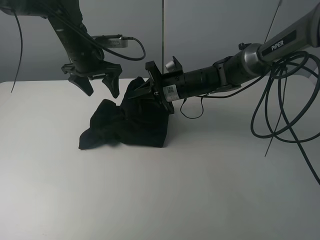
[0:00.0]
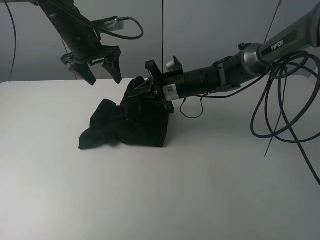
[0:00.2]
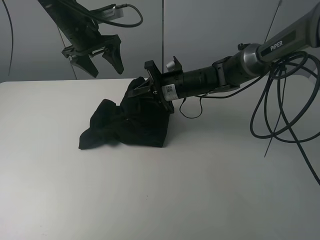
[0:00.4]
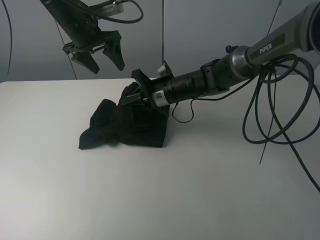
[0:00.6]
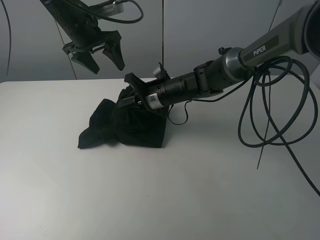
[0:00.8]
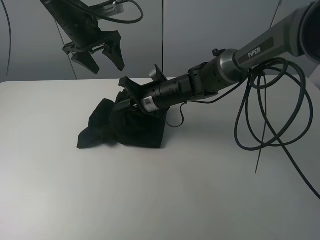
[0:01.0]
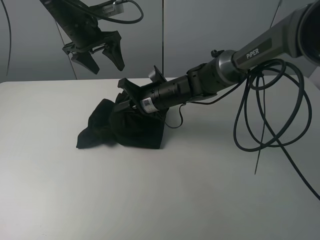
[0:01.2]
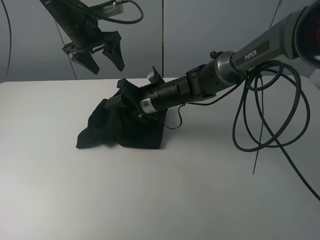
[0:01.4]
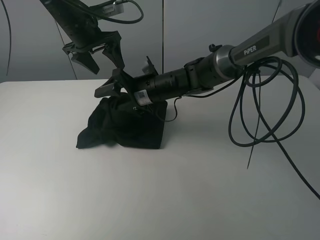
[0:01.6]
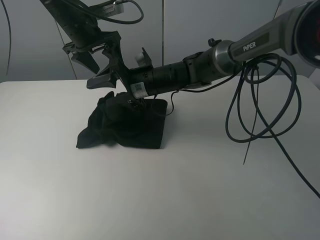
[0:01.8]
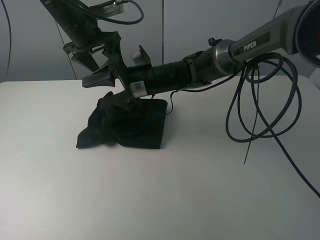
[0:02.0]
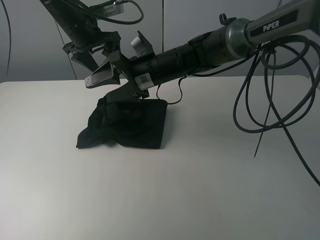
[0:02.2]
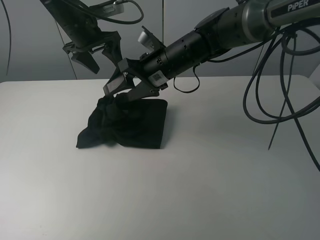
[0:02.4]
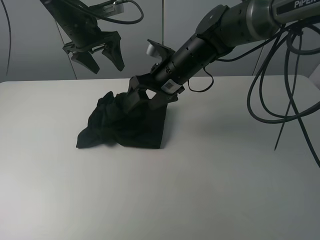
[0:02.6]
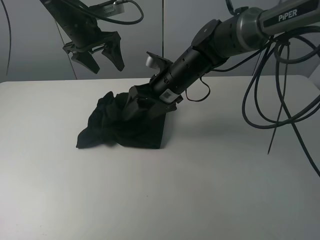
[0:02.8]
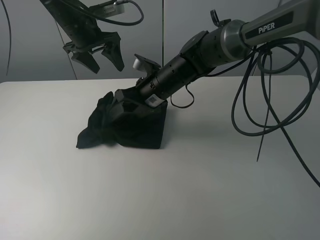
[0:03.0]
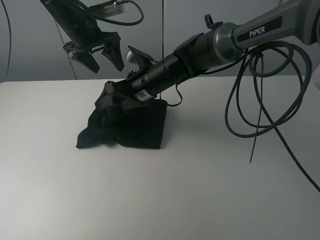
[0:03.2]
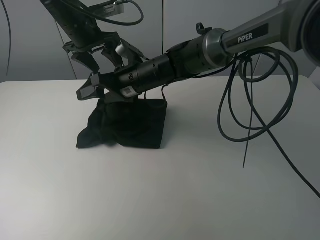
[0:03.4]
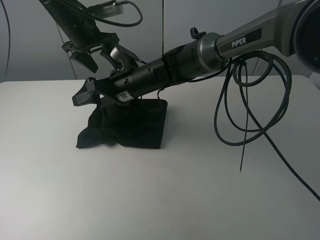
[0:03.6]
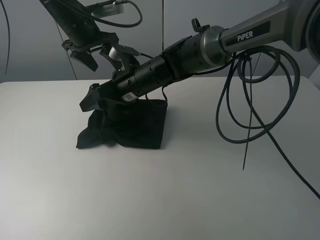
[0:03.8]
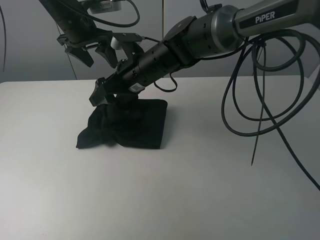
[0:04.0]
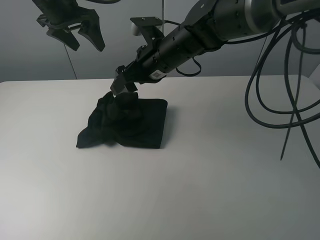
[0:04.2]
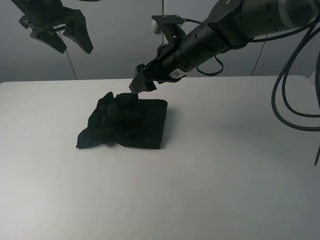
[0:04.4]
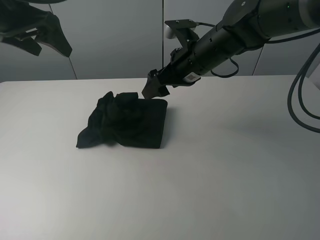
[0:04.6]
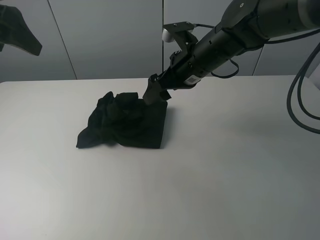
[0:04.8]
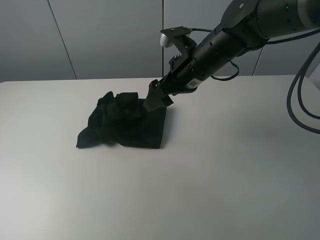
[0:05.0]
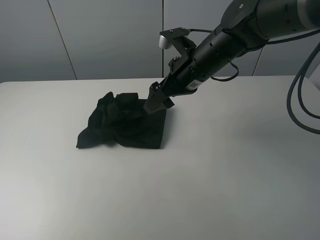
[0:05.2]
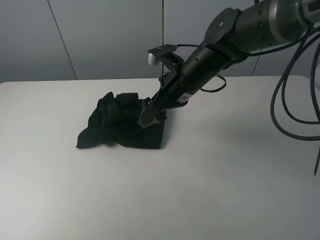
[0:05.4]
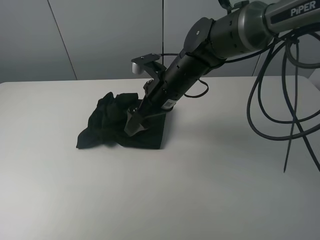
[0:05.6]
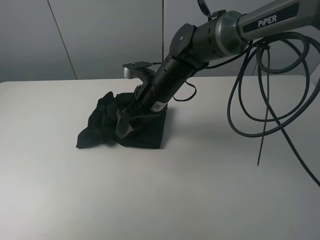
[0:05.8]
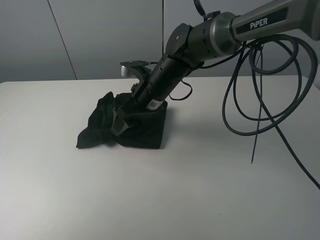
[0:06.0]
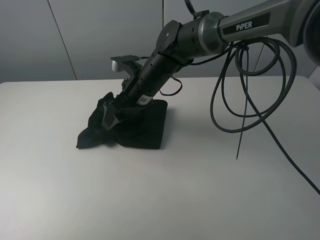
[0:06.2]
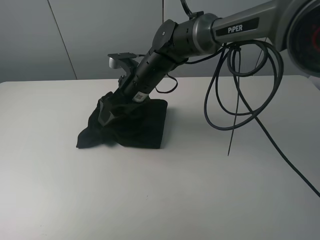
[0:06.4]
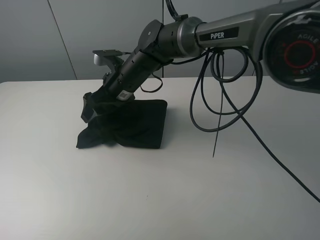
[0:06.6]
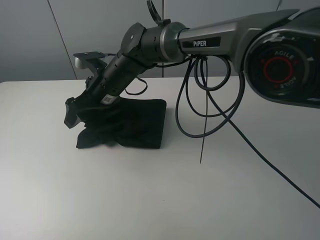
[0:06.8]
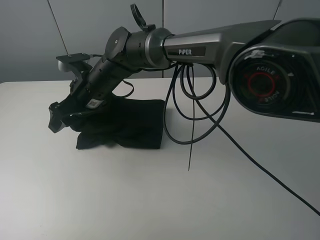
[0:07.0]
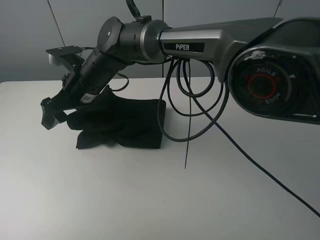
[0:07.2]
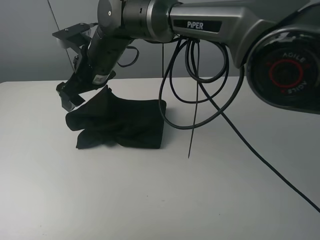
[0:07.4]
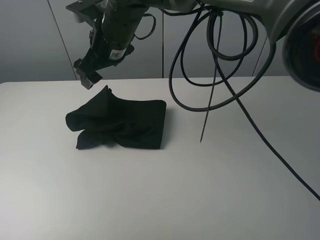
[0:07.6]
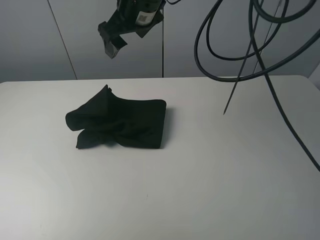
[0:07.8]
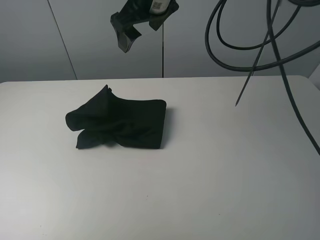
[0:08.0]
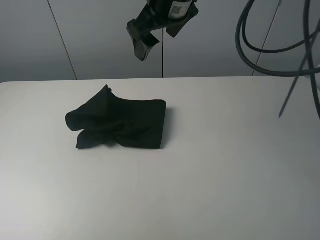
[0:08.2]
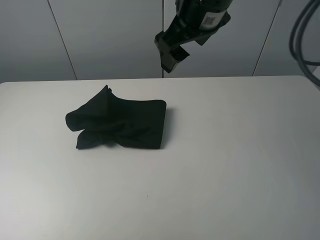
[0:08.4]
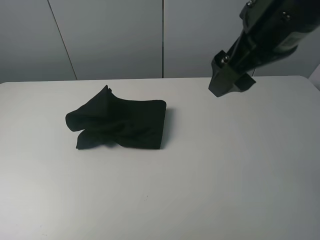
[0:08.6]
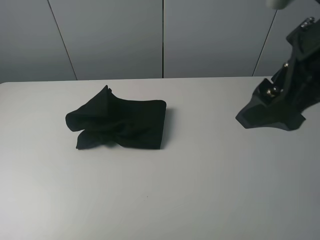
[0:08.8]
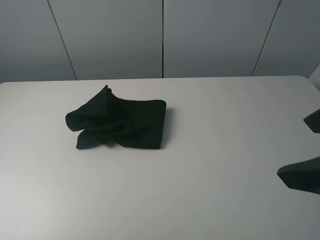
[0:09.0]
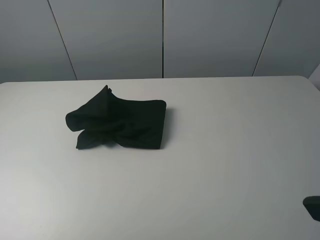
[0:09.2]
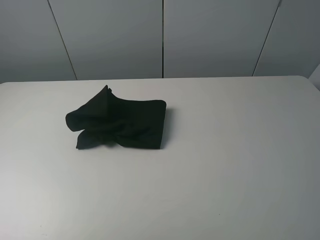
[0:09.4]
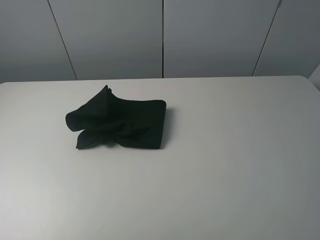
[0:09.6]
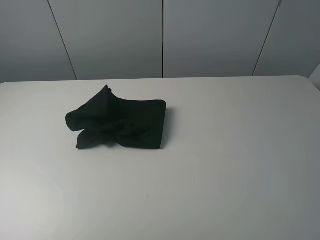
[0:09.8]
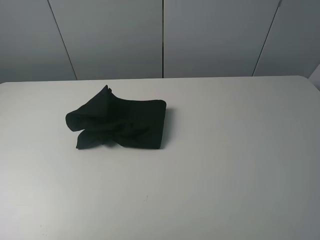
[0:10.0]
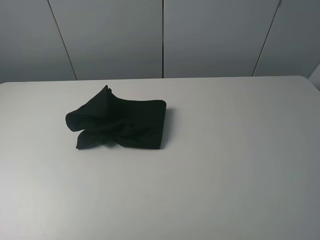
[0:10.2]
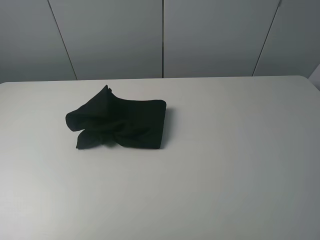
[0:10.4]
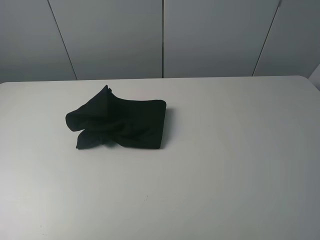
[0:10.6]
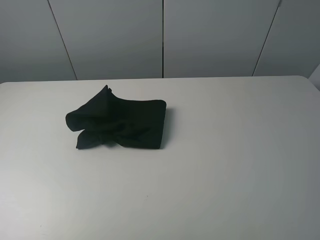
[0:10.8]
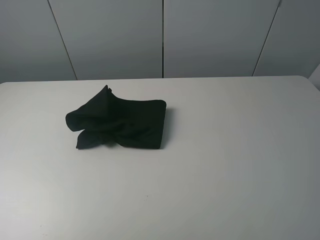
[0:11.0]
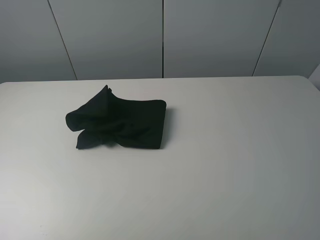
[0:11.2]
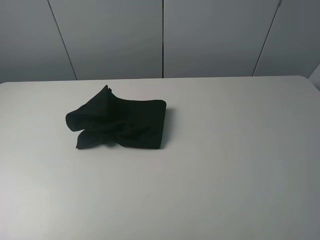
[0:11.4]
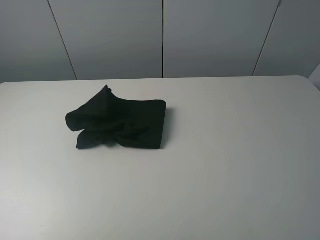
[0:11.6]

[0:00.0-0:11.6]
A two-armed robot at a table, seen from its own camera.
Task of the whole recording: fold the clothes on the table.
Step, 0:00.0 to 0:07.4: Fold the black T-shirt from right to left with right gripper.
0:00.0 to 0:01.4: The right gripper shifts roughly 5 cm to the left, and opens.
0:02.8 to 0:04.4: The right gripper is displaced upward by approximately 5 cm, and goes to the left and returns, approximately 10 cm each way, while the left gripper shifts about 10 cm upward and to the left.
0:04.4 to 0:05.8: The right gripper goes approximately 10 cm downward and to the left; the left gripper is displaced backward by approximately 30 cm.
0:05.8 to 0:07.2: The right gripper travels to the left by roughly 15 cm; the left gripper travels backward by approximately 5 cm.
0:07.2 to 0:08.8: The right gripper goes some 40 cm to the right, backward and upward.
0:08.8 to 0:10.2: The right gripper heads backward and to the right, covering about 20 cm.
